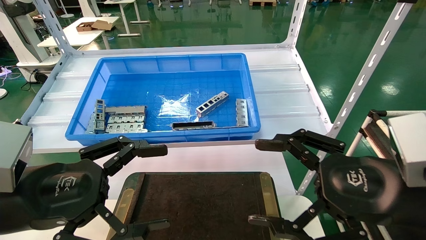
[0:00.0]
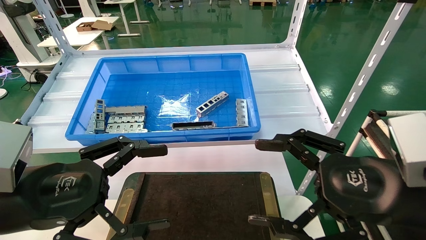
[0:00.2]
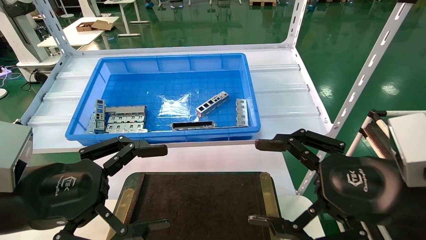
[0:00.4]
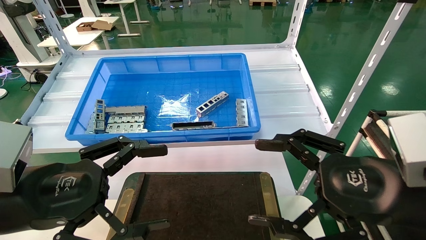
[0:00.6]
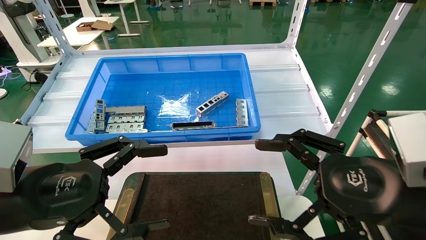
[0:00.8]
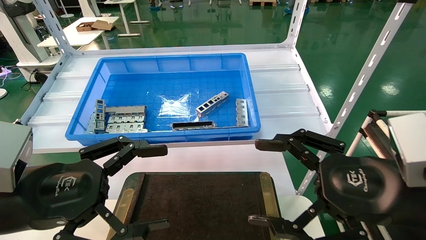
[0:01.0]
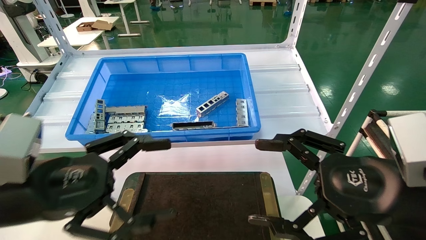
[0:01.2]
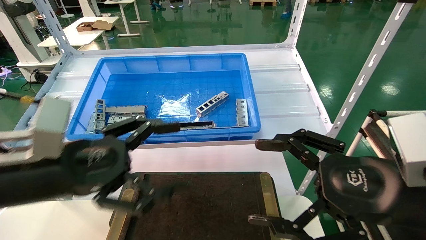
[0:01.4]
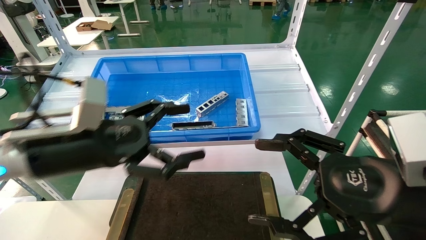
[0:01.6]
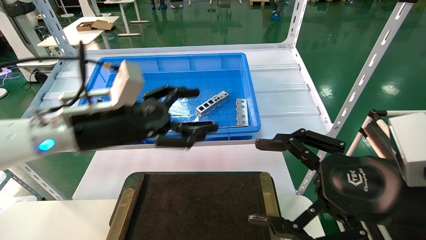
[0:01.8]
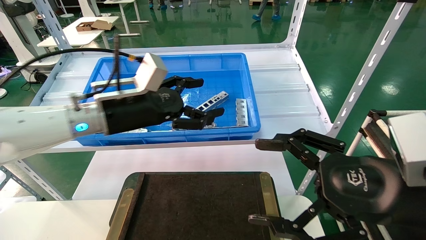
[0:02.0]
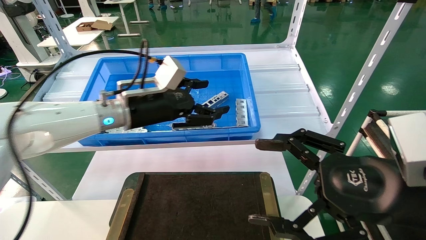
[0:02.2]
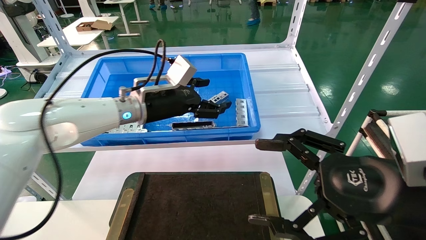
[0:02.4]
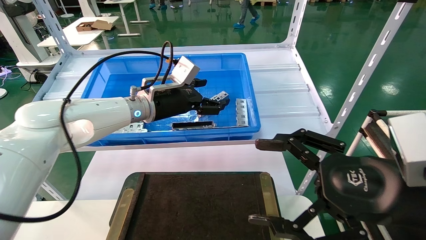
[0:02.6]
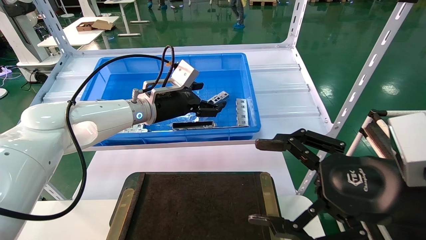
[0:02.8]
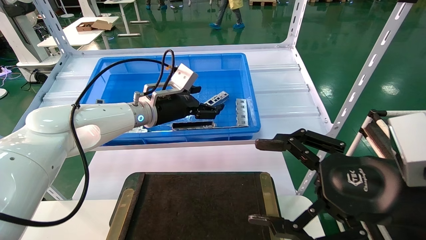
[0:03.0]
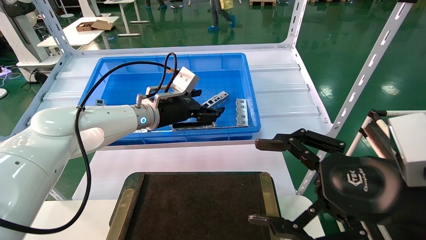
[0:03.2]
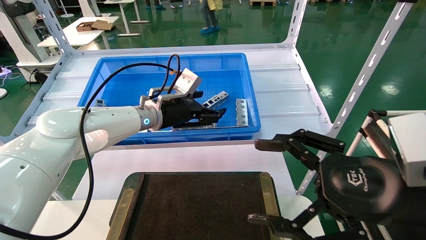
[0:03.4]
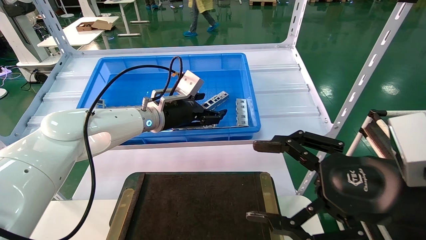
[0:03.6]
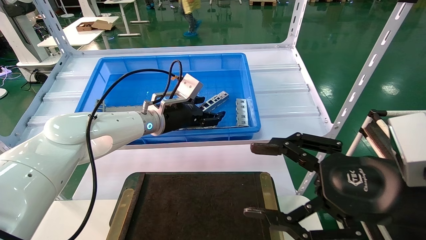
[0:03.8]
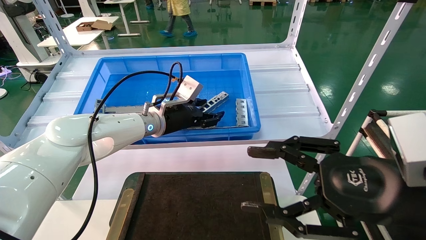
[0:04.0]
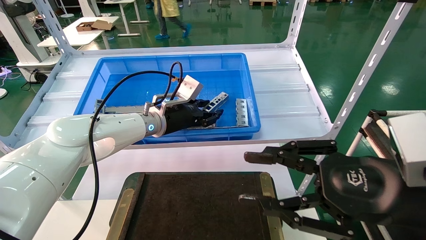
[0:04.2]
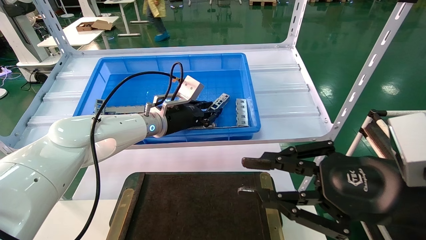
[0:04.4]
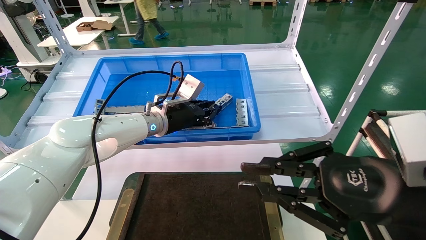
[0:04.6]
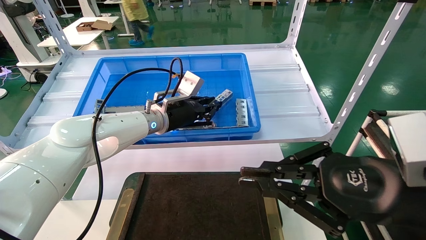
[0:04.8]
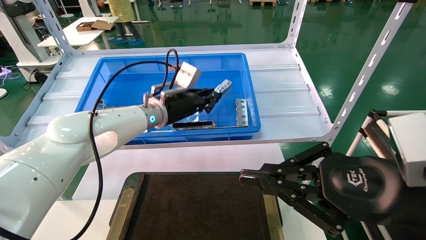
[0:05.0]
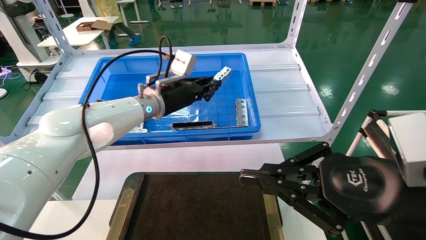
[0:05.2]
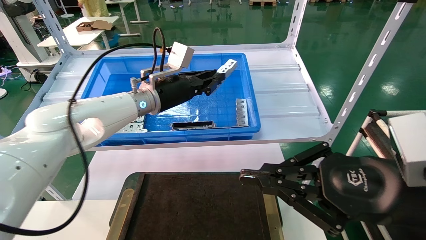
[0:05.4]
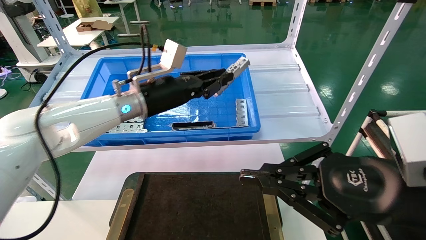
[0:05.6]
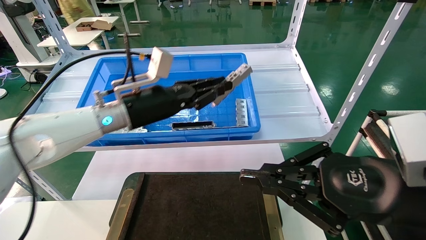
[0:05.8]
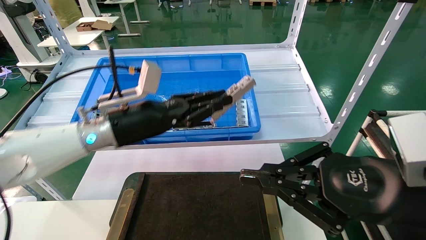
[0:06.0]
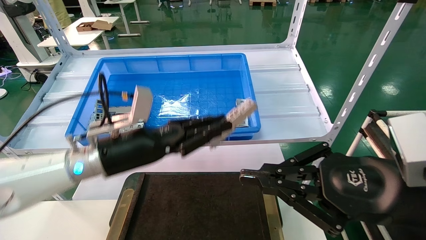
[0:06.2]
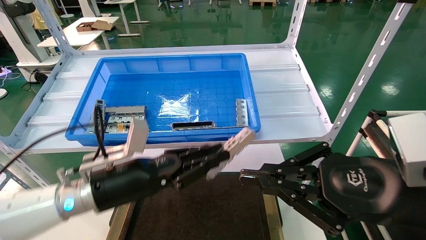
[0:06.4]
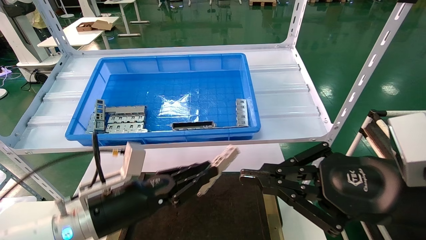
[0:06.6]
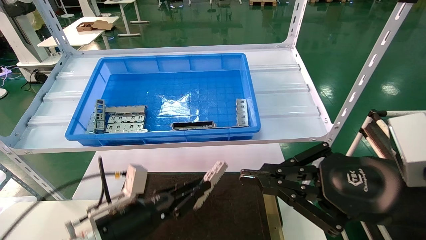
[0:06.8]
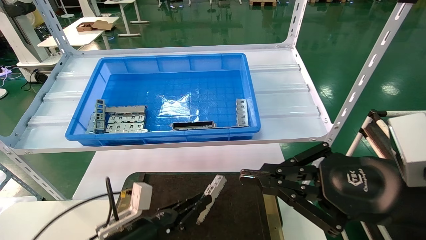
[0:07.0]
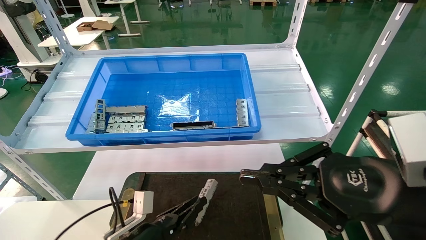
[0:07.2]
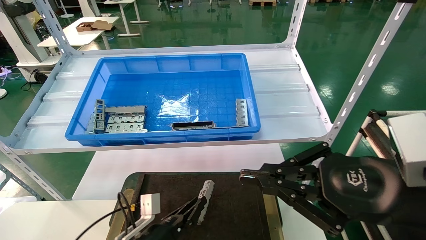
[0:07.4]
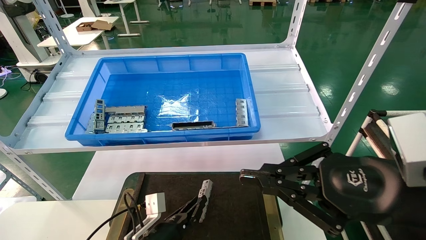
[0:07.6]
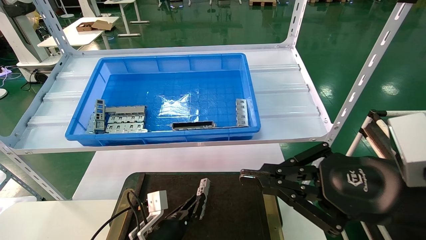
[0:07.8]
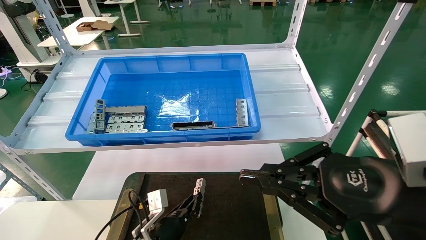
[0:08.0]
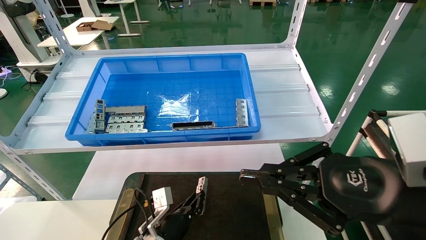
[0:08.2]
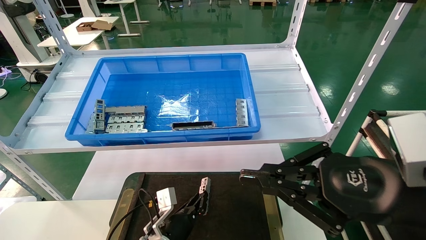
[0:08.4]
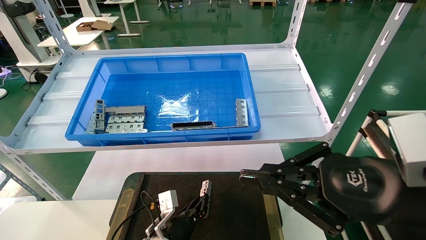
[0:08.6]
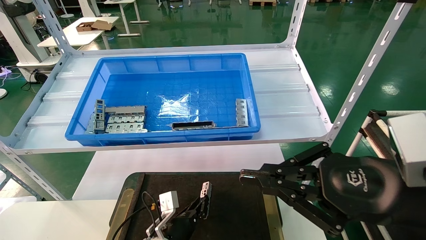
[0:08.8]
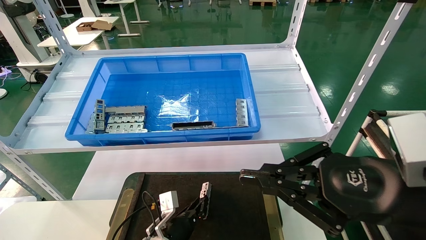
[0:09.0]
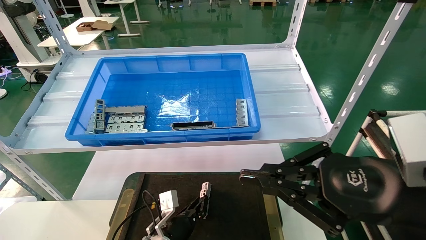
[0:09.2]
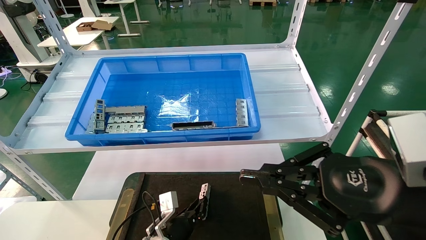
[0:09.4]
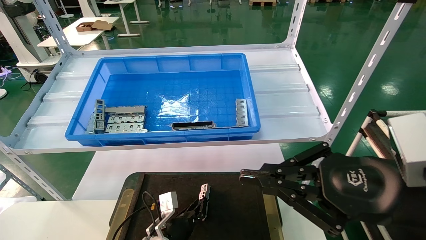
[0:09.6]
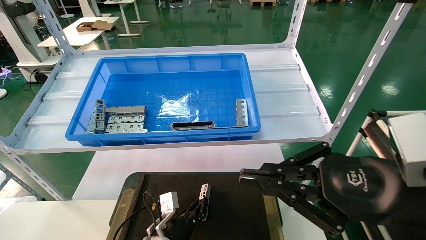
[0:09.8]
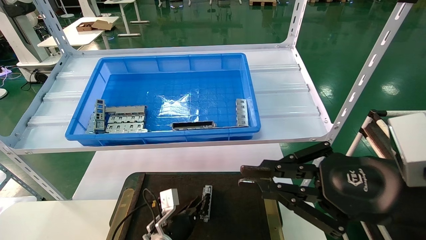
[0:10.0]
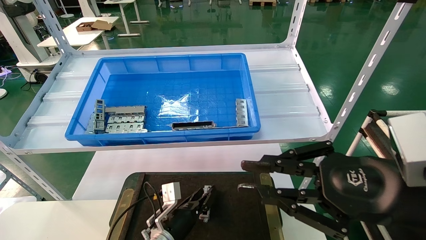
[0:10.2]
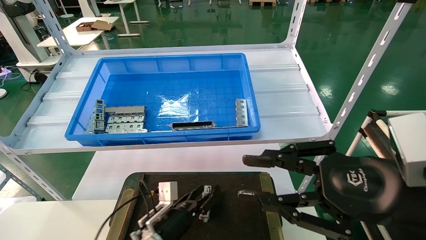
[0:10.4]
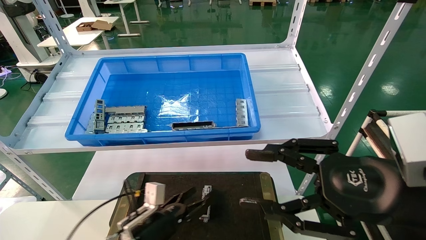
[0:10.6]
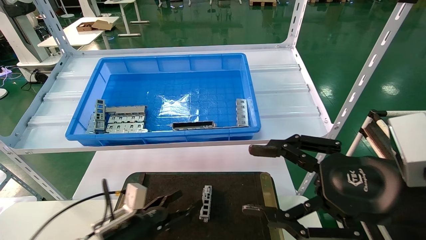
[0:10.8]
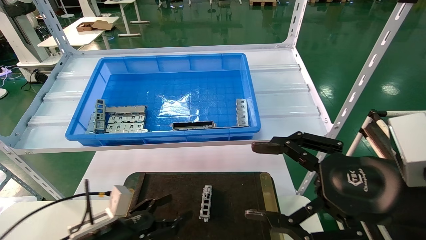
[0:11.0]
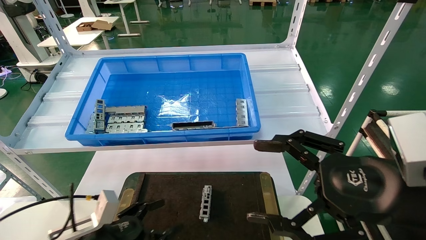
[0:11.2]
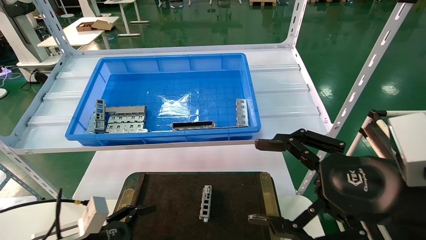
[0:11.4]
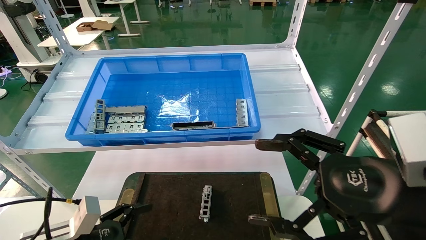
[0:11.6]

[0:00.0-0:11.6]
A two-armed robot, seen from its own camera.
Task of the whole recording: Grasp the part with one hand and place it on the black container.
Step, 0:01.6 to 0:04.6: Pick up the front USB bracket from the feeding area.
Step, 0:04.8 to 0:10.0: Place the front USB bracket into the box.
0:00.0 to 0:01.4: The left gripper changes place by roughly 5 cm.
0:01.4 to 0:02.8: The left gripper shifts approximately 25 cm forward and to the right.
0:02.8 to 0:04.4: The right gripper closes, while the left gripper closes.
0:04.4 to 0:05.8: The right gripper closes up. The left gripper travels backward by roughly 10 cm.
0:05.8 to 0:07.2: The left gripper moves downward, roughly 25 cm.
0:07.2 to 0:08.8: The left gripper moves forward, downward and to the right, some 10 cm.
0:08.8 to 0:10.2: The grippers stay close to where they were, moving slightly.
0:10.2 to 0:11.6: The left gripper goes about 25 cm to the left, backward and upward, and opens its fingers. The right gripper opens up.
